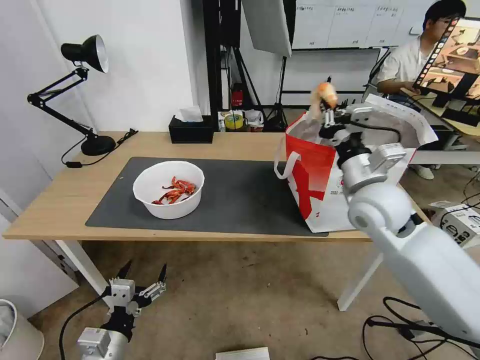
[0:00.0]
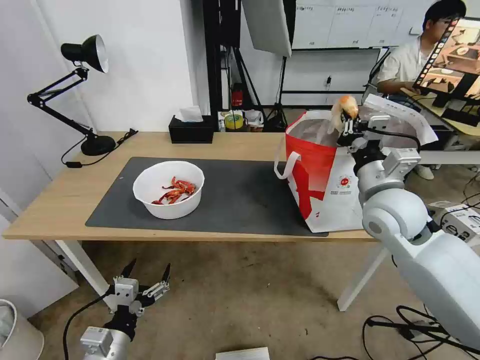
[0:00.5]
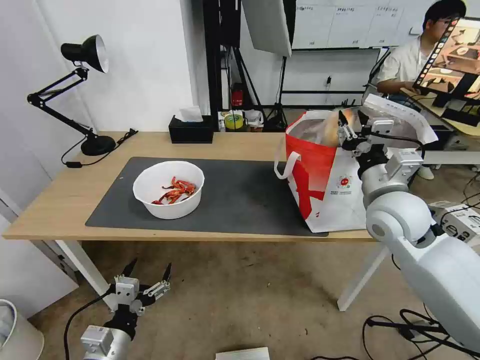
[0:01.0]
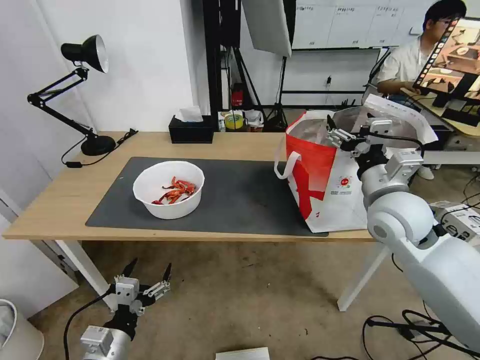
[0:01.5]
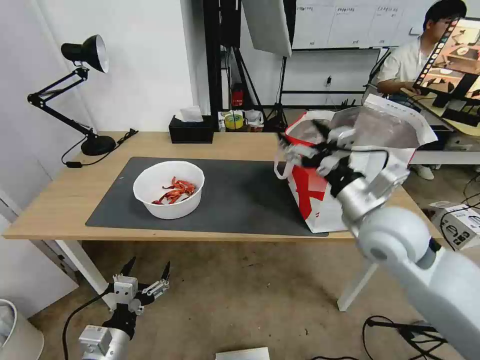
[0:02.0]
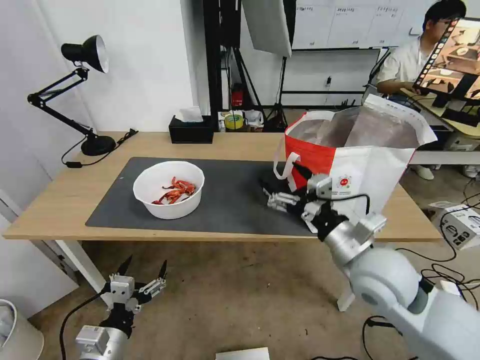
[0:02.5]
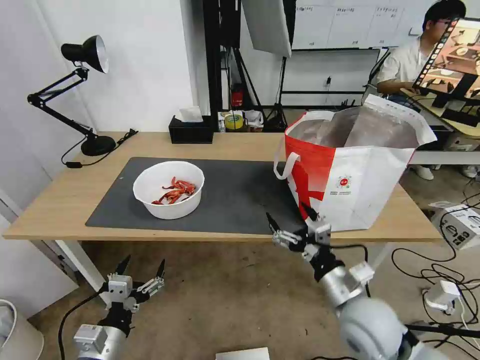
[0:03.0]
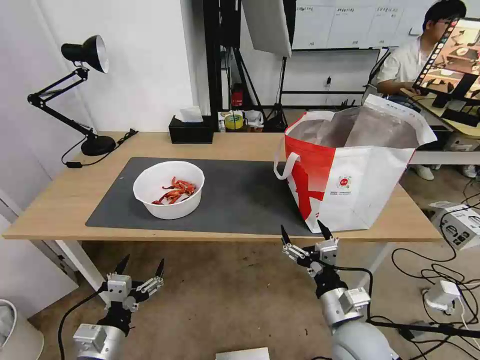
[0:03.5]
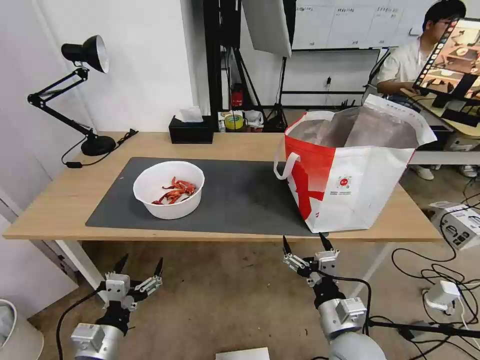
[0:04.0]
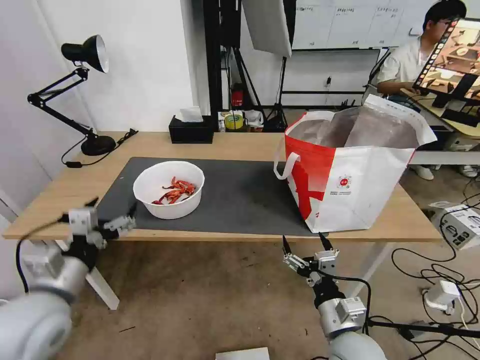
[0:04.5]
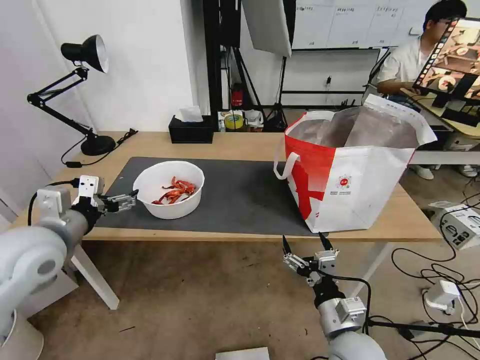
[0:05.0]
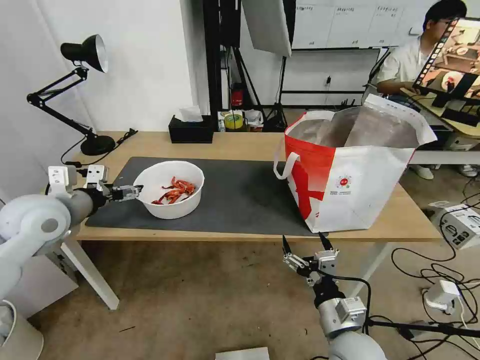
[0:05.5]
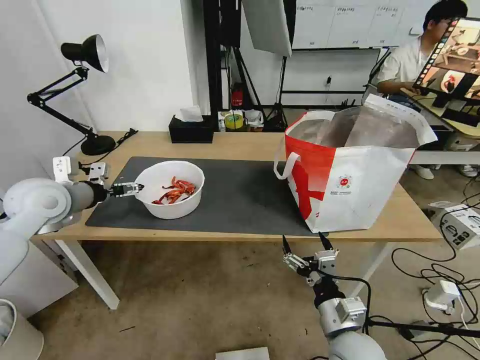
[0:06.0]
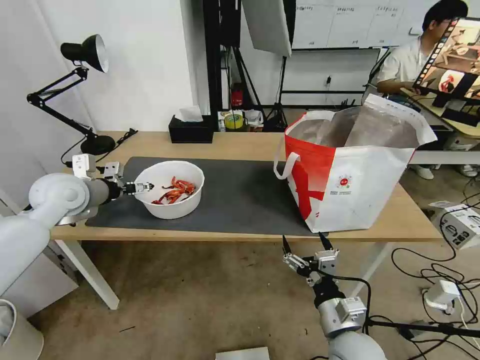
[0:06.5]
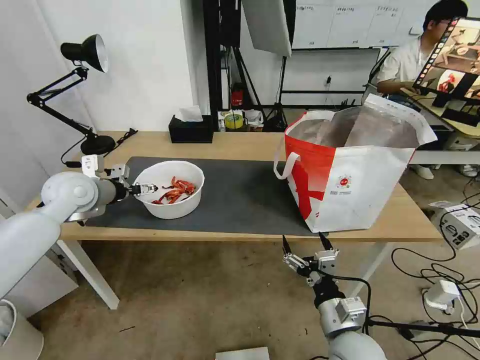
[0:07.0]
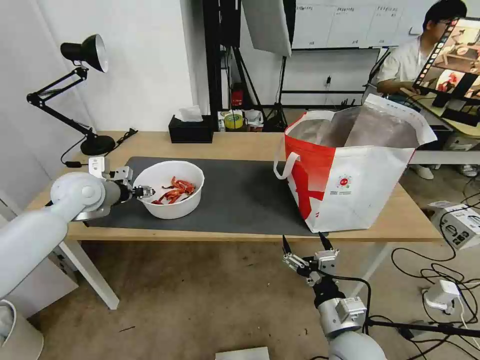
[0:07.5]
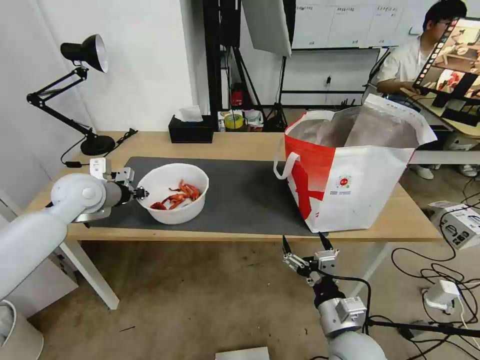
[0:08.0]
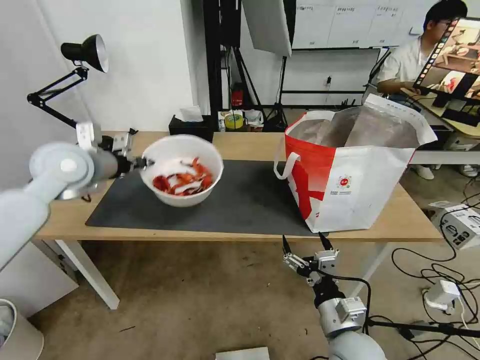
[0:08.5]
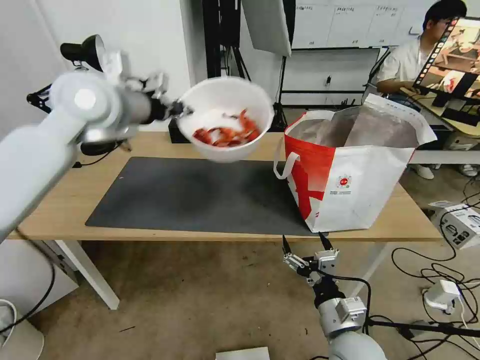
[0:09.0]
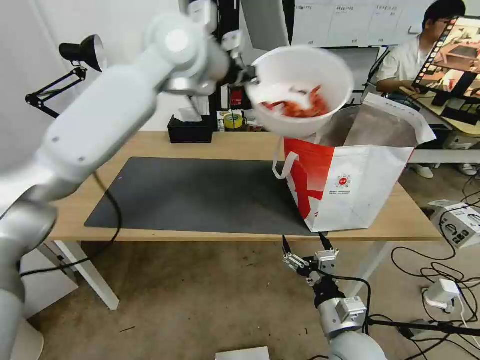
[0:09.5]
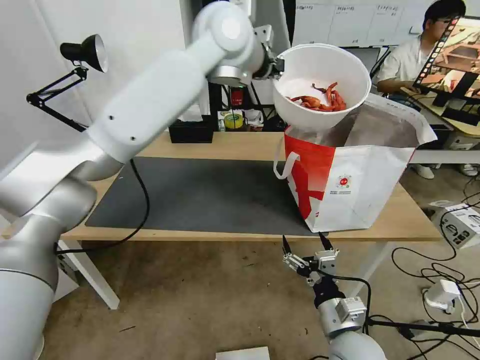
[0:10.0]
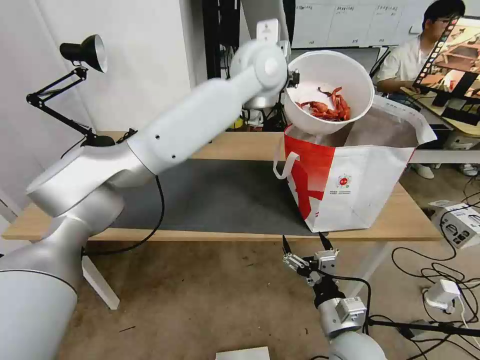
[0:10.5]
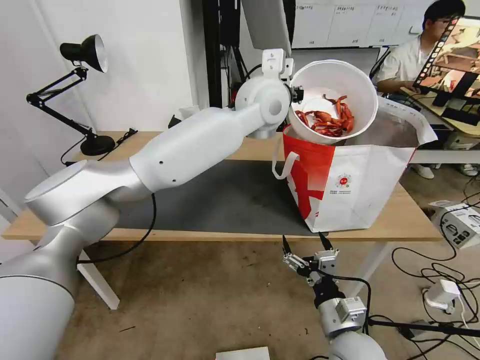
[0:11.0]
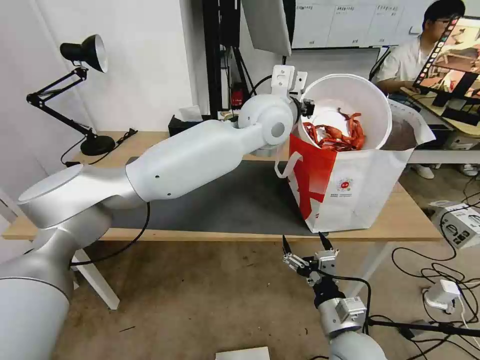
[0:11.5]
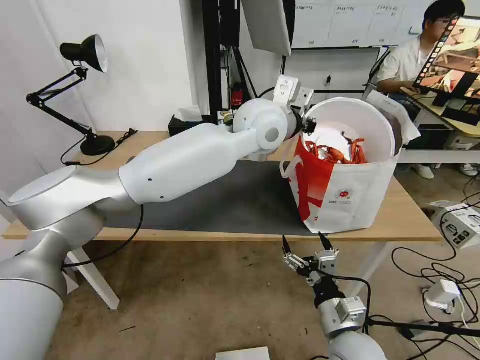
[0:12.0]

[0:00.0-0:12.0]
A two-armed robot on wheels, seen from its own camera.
Task of the whole recording: Pick up the trash from the table and place it into the takeout bag.
0:00.0 to 0:02.0: The right gripper travels backward by approximately 5 cm, and opens its fingers.
0:02.0 to 0:04.0: The right gripper is displaced downward and backward by some 25 cm.
0:04.0 to 0:06.0: The left gripper is displaced forward and upward by roughly 35 cm.
0:06.0 to 0:08.0: The left gripper moves about 5 cm, and closes its fingers.
0:08.0 to 0:10.0: The left gripper goes some 40 cm to the right and upward.
0:10.0 to 0:12.0: The left gripper heads downward and to the right, covering some 15 cm.

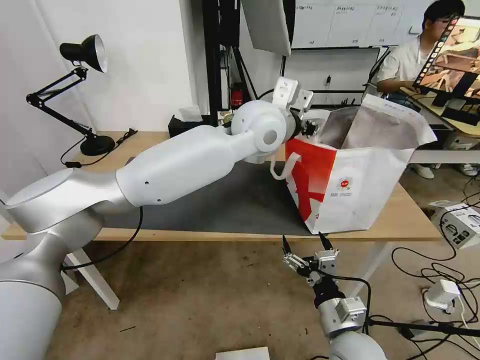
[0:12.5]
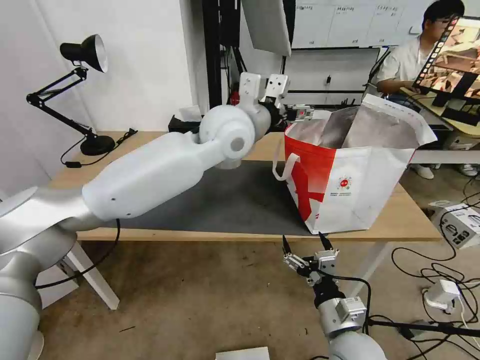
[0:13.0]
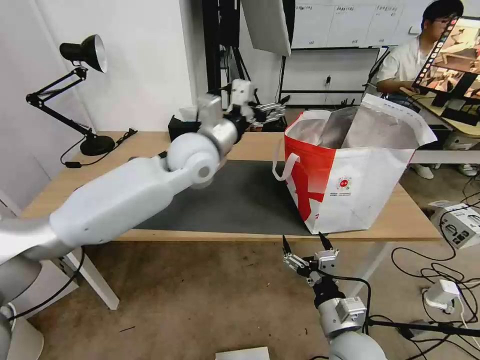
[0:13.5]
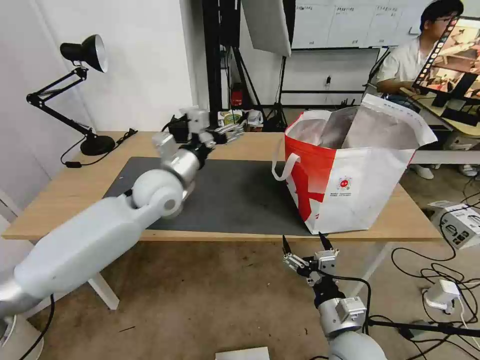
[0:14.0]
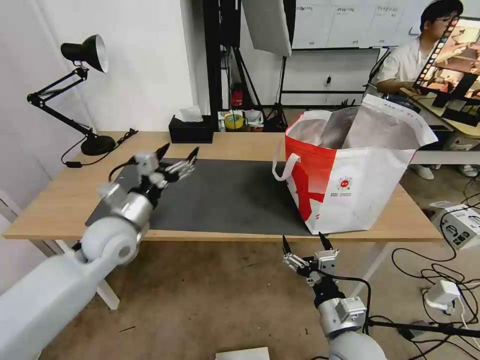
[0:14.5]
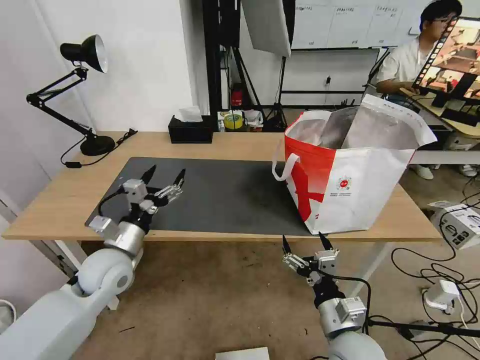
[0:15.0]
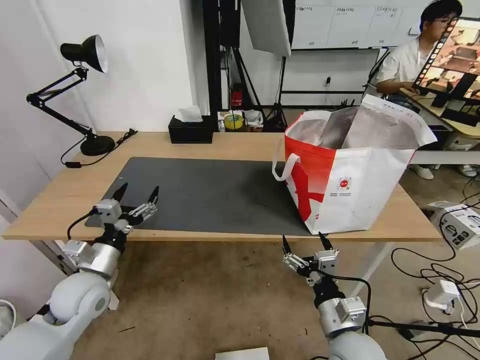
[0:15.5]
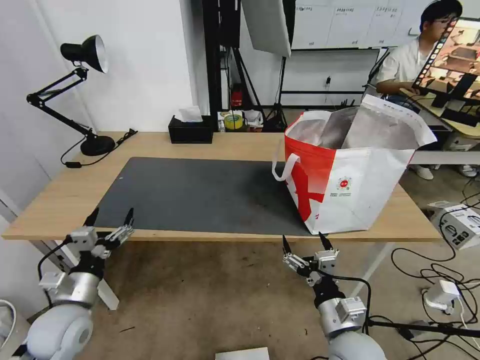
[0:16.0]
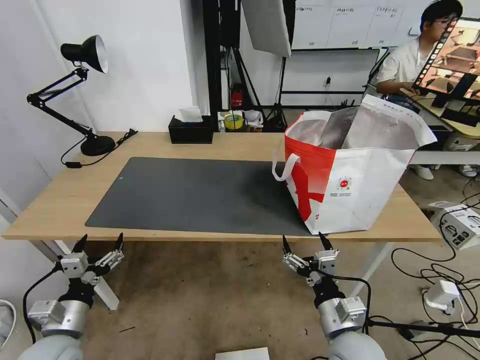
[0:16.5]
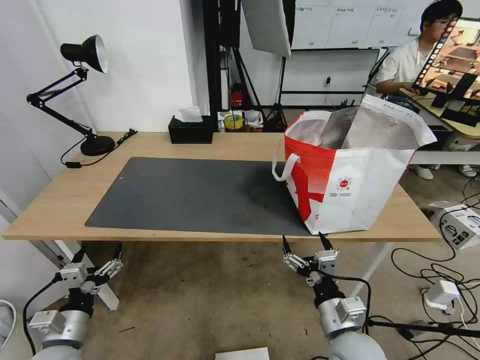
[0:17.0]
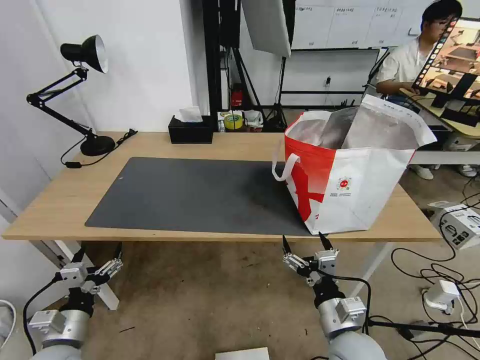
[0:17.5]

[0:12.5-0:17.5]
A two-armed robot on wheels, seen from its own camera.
Task of the whole recording: Pick up the trash from the table and place it into the takeout bag.
0:12.5 to 0:15.0: The left gripper goes about 40 cm to the left, downward and backward, and opens.
0:15.0 to 0:17.5: The left gripper moves backward, downward and to the left, approximately 20 cm.

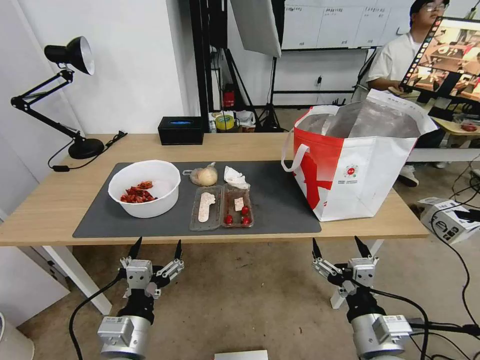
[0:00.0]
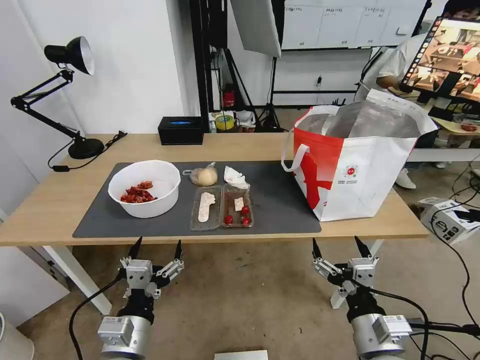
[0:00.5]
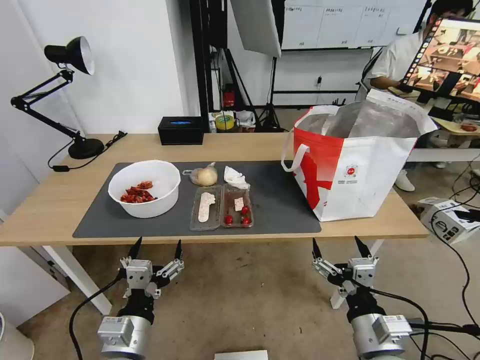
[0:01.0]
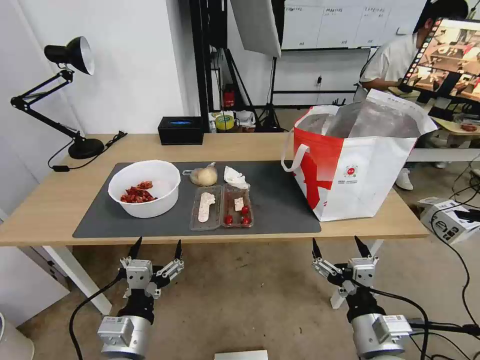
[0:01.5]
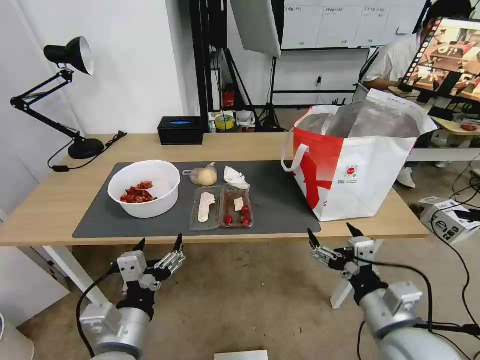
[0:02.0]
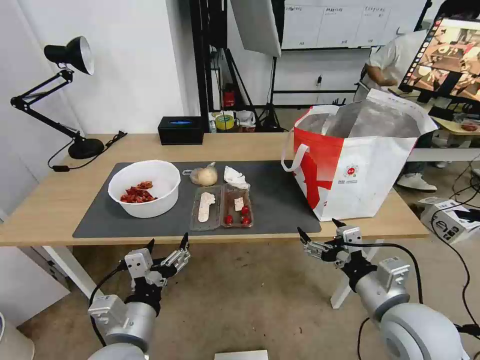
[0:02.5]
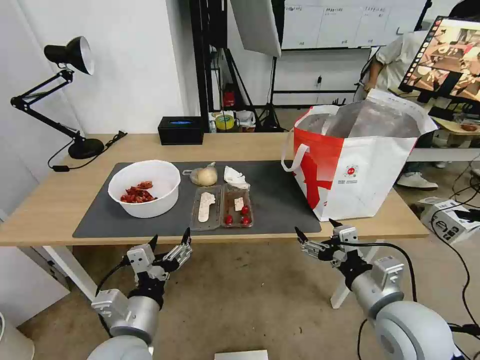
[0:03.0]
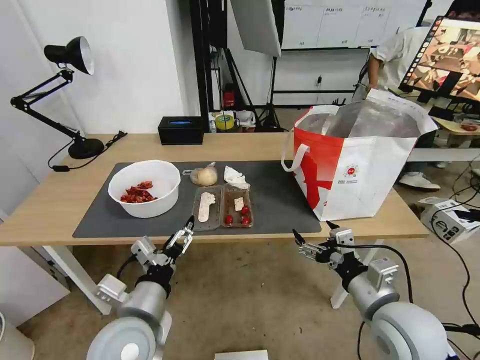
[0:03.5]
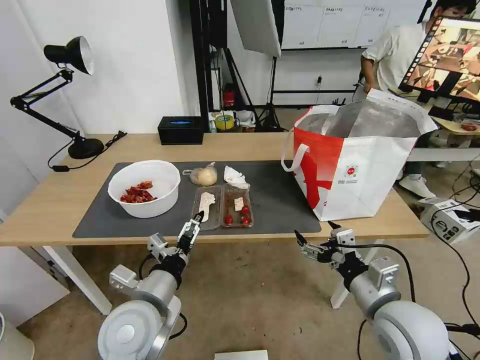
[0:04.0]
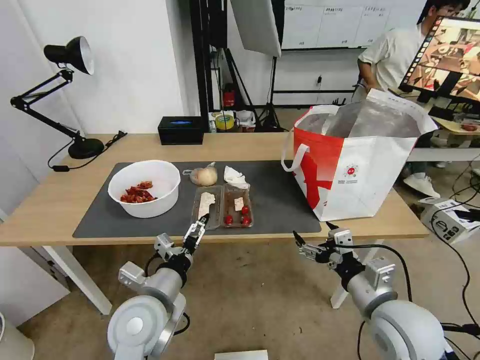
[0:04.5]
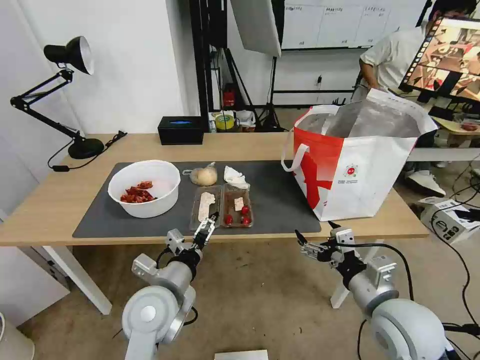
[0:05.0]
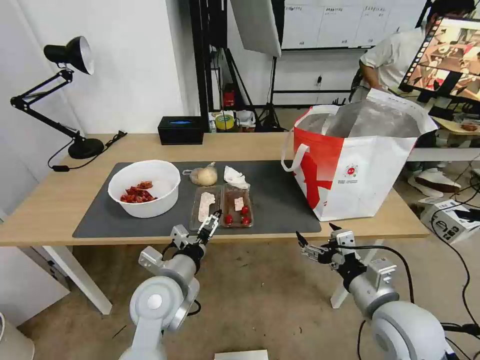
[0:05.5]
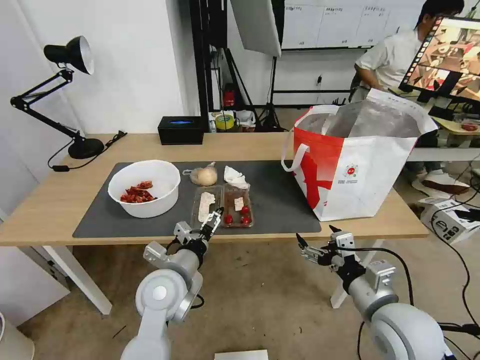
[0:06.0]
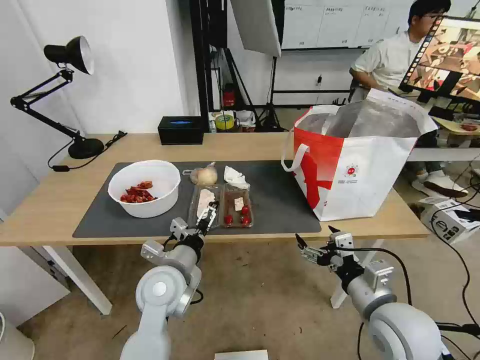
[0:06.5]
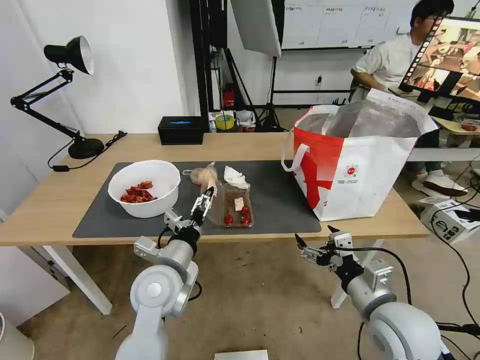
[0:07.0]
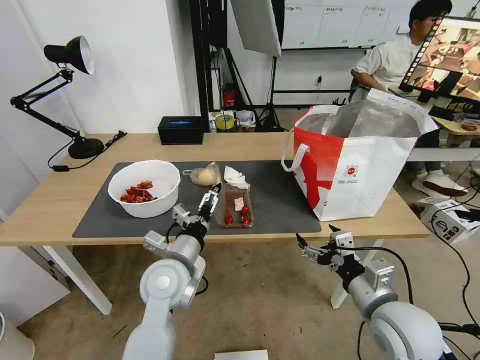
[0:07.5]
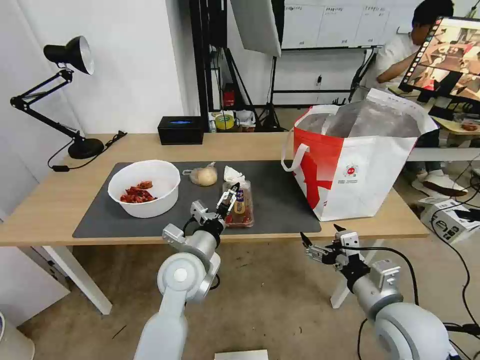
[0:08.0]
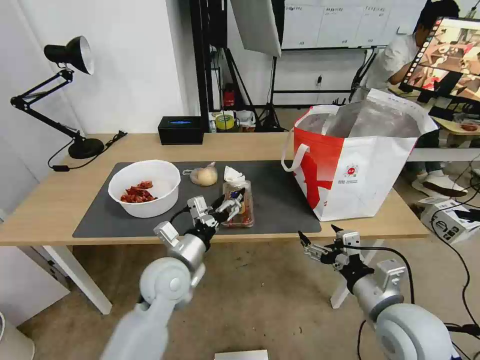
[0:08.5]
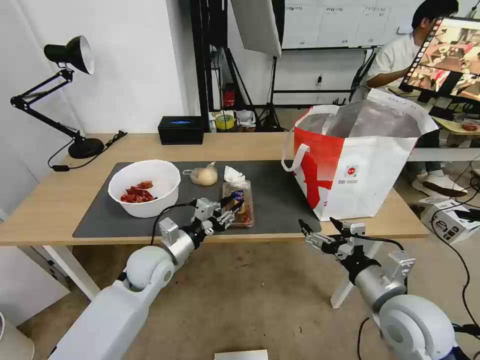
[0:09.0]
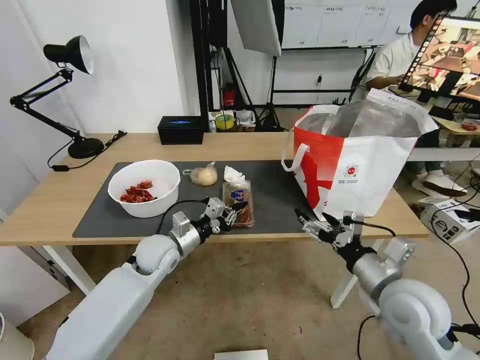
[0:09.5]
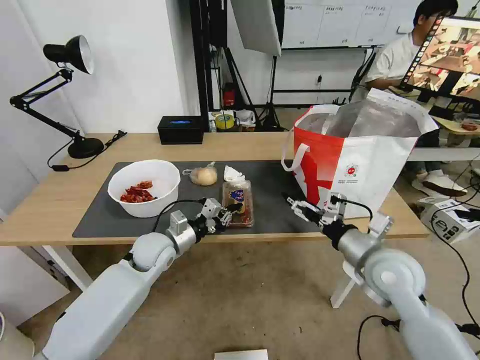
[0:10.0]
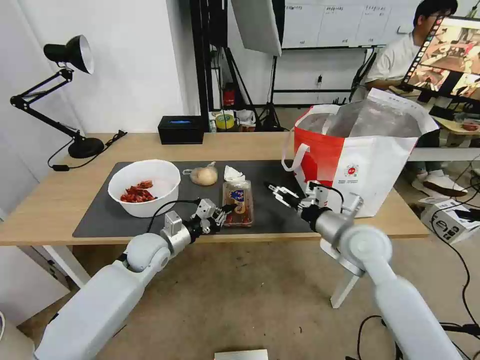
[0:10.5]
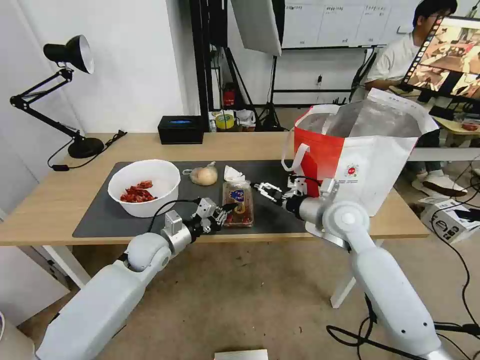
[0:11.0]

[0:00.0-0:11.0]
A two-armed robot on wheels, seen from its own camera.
Task of the whole recording: Pick up the trash from the table and place it into the takeout bag.
0:03.5 to 0:05.5: The left gripper travels forward by some 10 cm.
0:05.5 to 0:07.5: The grippers make only small movements.
0:07.5 to 0:09.0: The left gripper is displaced forward and to the left by roughly 10 cm, and closes up.
0:09.0 to 0:11.0: The right gripper moves forward, approximately 20 cm. Meanwhile the left gripper ends up about 5 cm from where it was.
